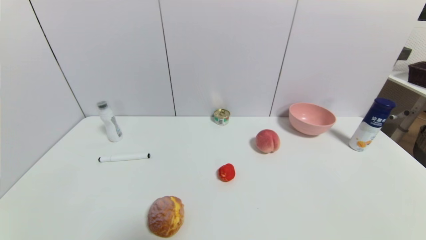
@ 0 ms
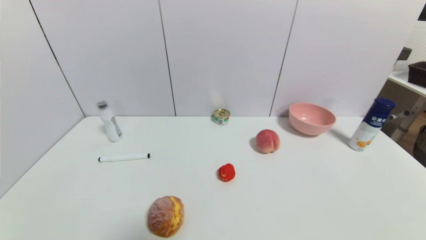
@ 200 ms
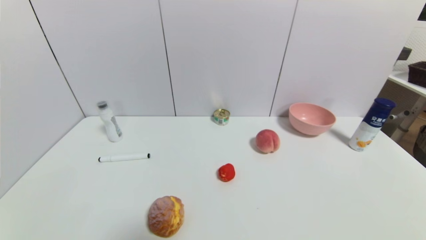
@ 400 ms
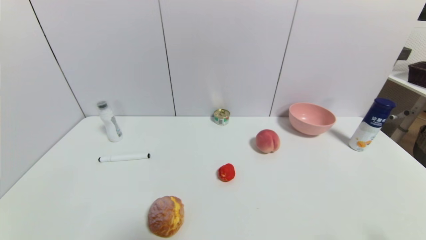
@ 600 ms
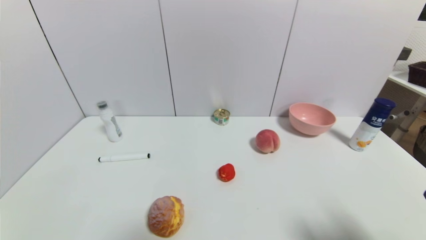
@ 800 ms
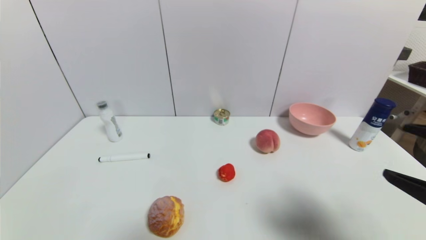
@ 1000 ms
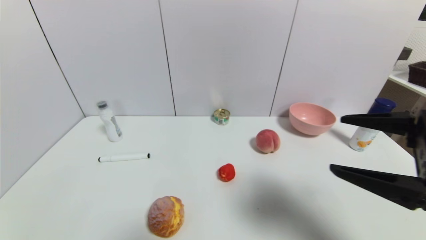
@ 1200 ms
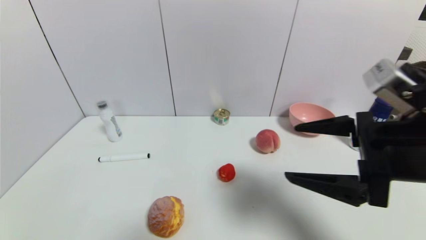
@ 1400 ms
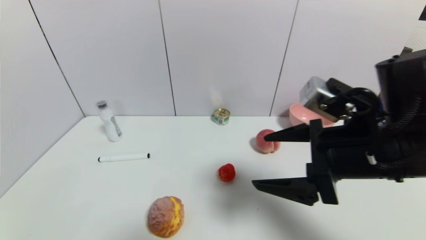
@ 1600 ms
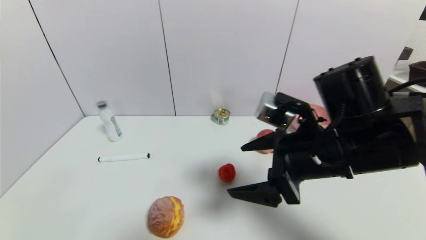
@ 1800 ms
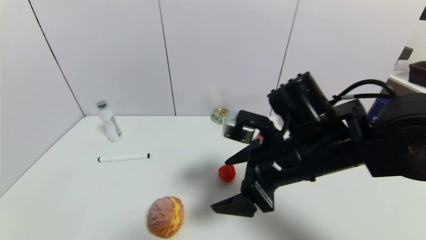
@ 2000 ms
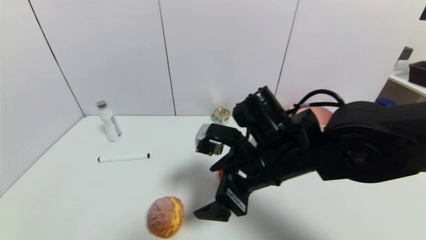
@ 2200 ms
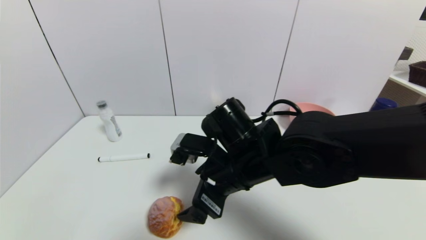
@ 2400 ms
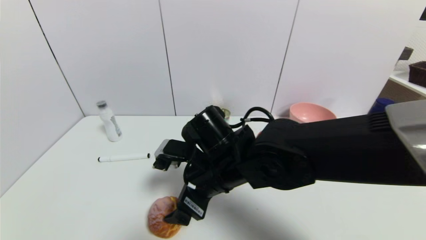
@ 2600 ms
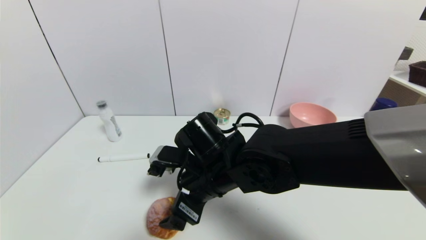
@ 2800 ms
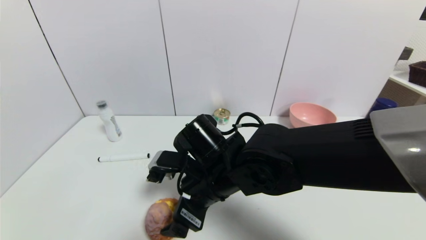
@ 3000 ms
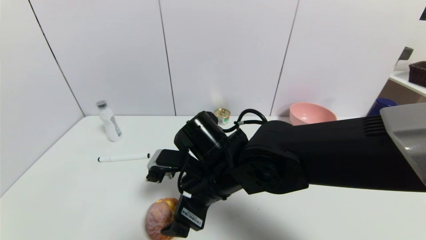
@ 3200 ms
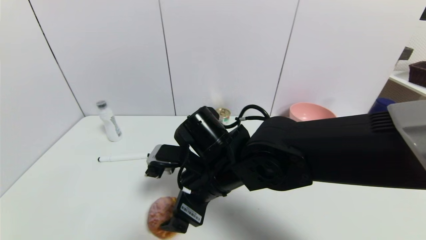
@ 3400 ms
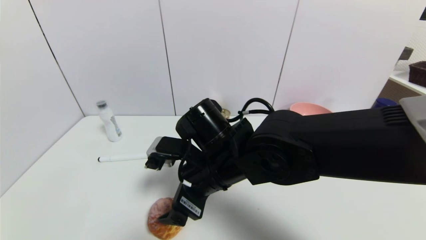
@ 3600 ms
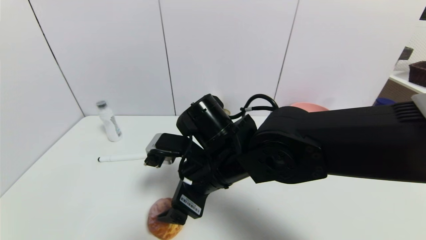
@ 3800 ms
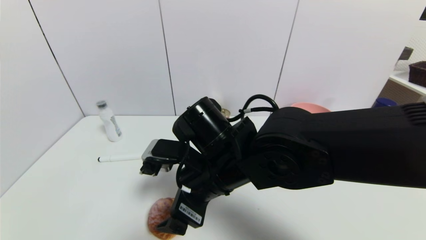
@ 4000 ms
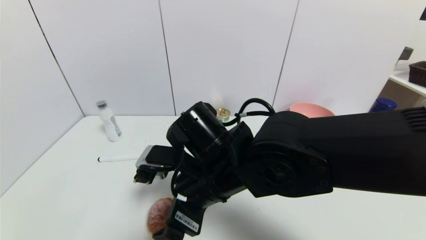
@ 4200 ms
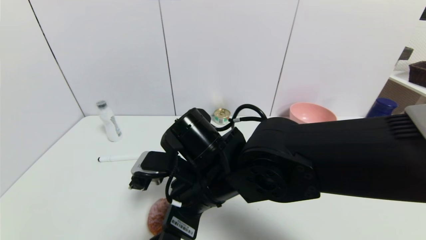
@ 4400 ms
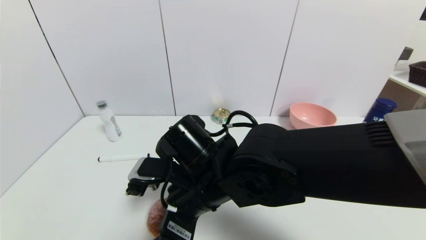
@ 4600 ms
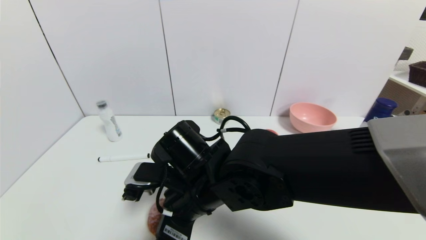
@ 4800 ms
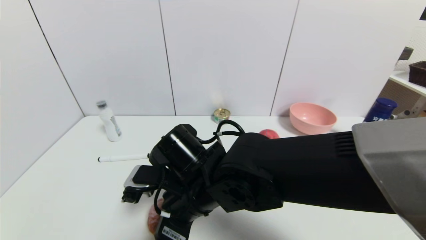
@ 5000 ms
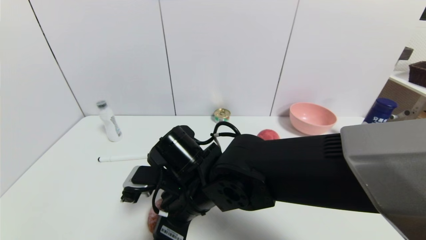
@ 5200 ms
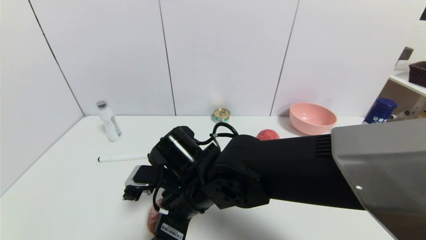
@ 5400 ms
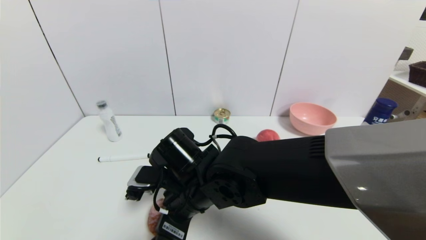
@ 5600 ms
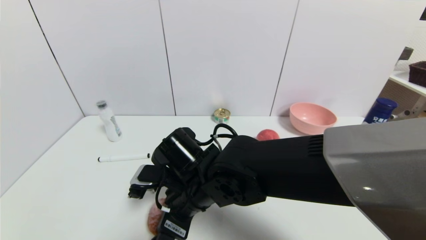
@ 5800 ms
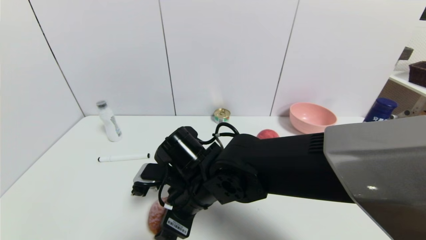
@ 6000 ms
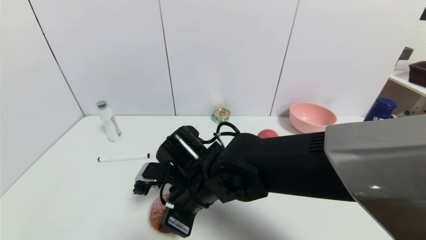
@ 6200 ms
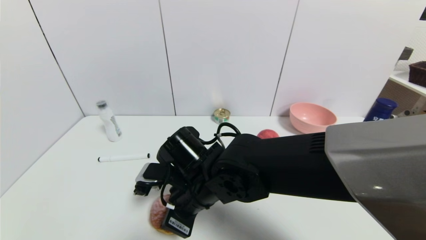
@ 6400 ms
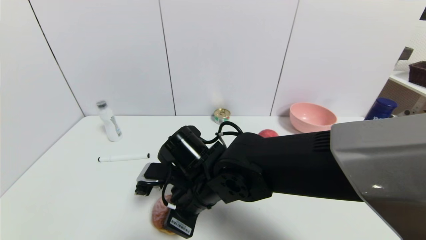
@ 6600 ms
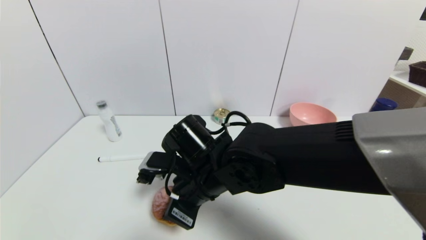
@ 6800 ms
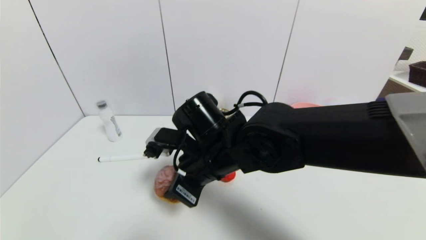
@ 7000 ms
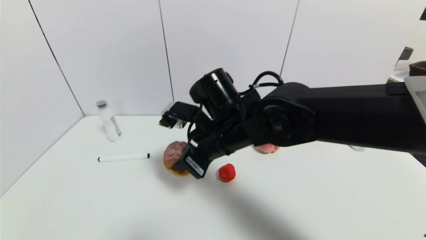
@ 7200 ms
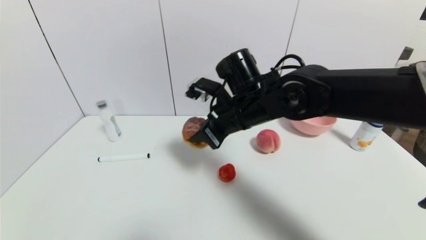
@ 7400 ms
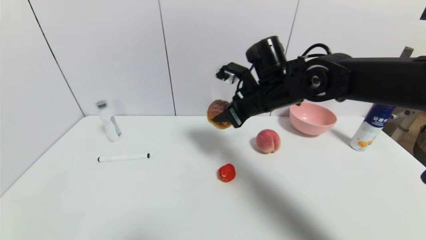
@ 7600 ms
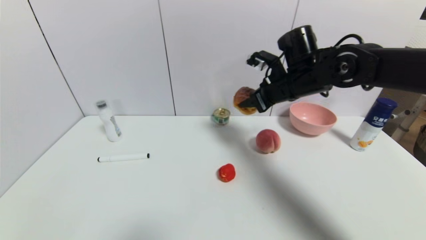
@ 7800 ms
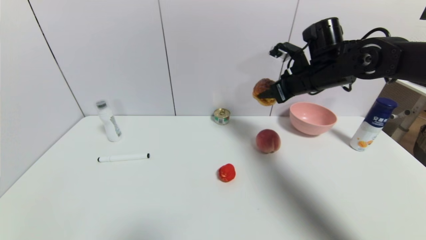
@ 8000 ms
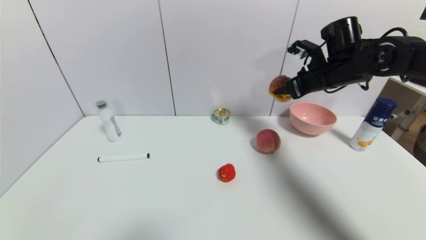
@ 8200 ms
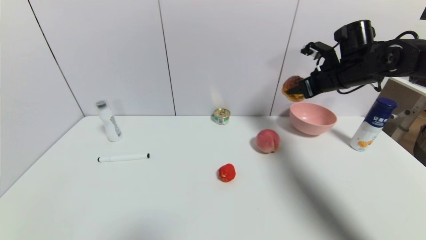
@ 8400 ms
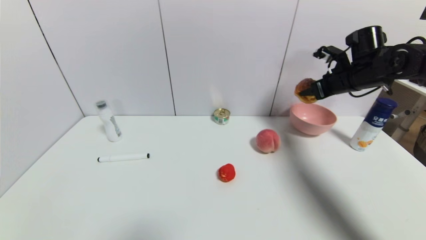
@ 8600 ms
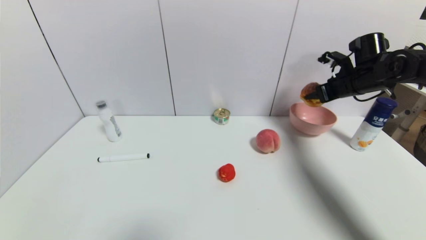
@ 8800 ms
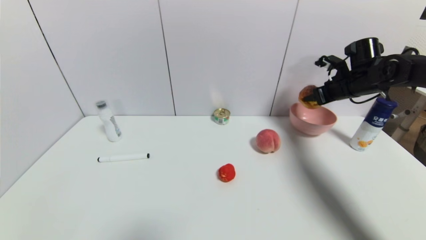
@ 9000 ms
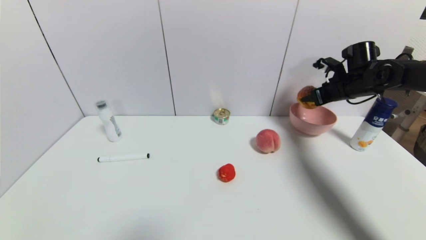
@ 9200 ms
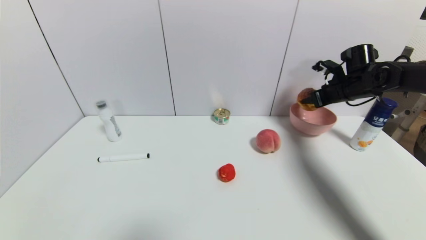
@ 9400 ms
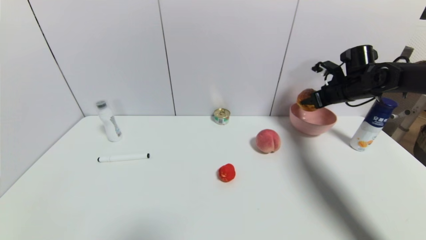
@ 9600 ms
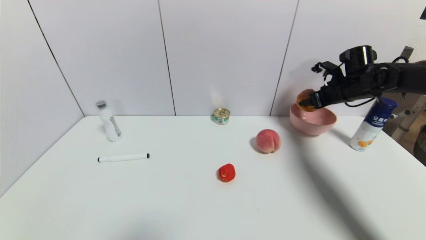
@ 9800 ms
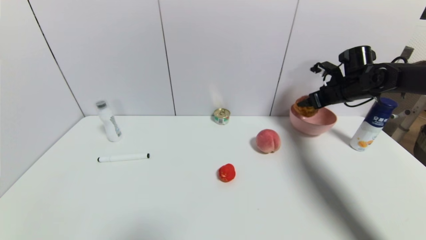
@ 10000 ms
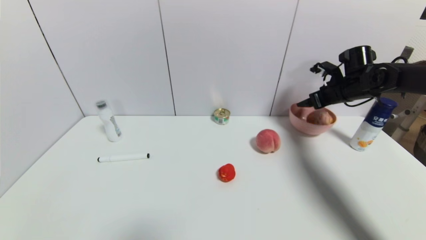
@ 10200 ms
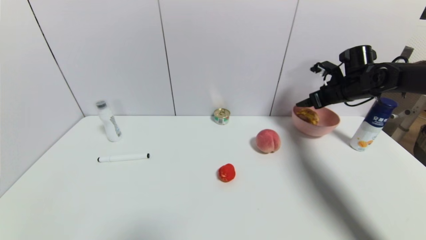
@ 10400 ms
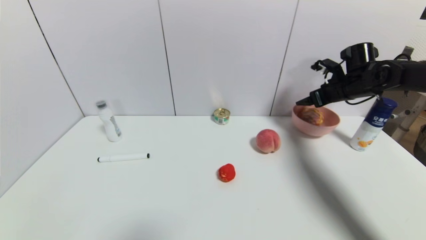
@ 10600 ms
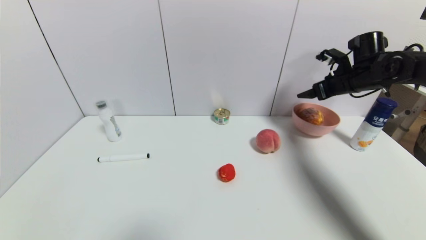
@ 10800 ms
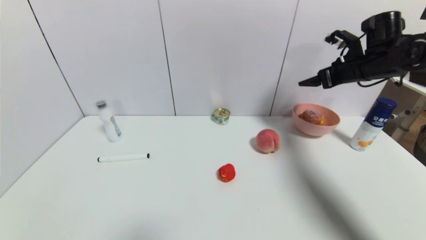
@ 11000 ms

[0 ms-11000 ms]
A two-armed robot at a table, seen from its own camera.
Task of the whole recording: use a gripper to pick the target object and place on the pink bowl.
Step, 0 ms to 6400 ms: Grasp the round bread with the right gripper.
Step, 6600 ms to 10400 ms: Place the round bread on the pink bowl with the right gripper.
0 ms to 1600 ms: The right gripper travels forward, upward and to the left by roughly 30 cm.
1600 ms to 3200 ms: The right gripper moves to the left and downward, approximately 20 cm.
3200 ms to 4800 ms: The grippers make only small movements.
4800 ms to 6200 ms: The right gripper closes up.
6200 ms to 7800 ms: The right gripper is displaced to the right, forward and upward by roughly 25 cm.
7800 ms to 9400 ms: The right gripper shifts about 20 cm to the right.
9400 ms to 11000 ms: The right gripper goes some 5 cm upward, and opens.

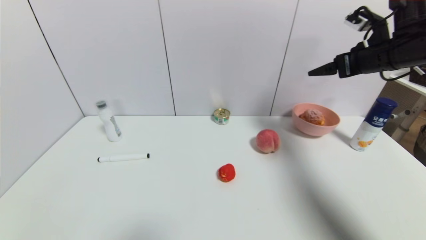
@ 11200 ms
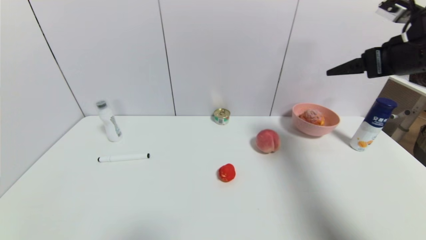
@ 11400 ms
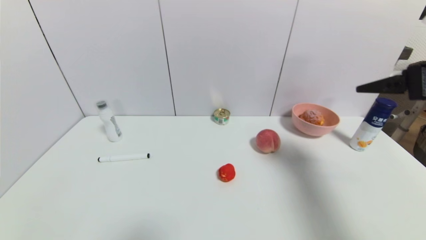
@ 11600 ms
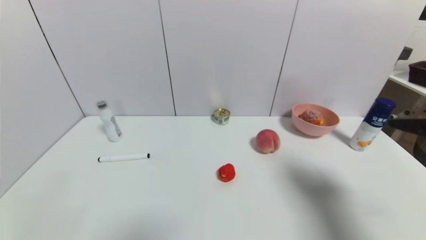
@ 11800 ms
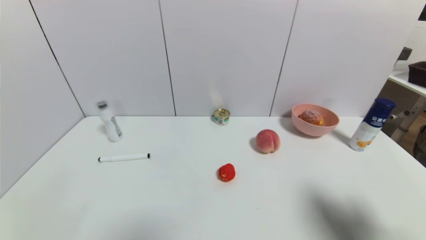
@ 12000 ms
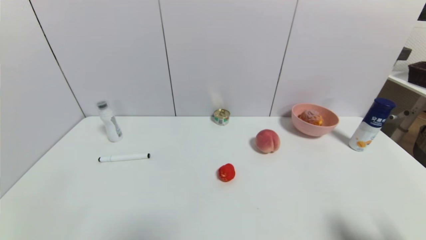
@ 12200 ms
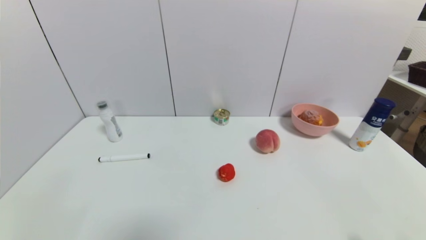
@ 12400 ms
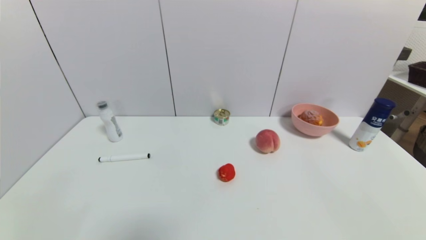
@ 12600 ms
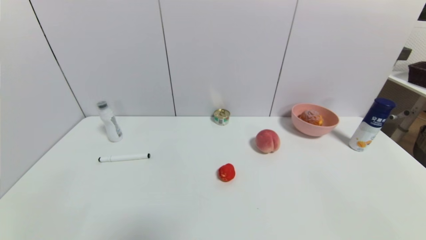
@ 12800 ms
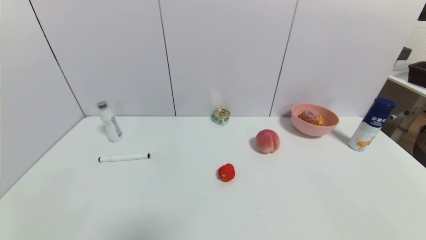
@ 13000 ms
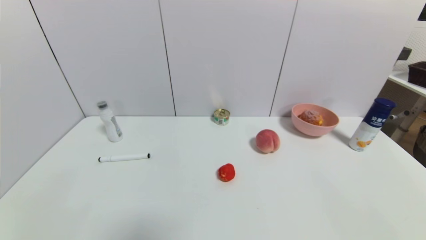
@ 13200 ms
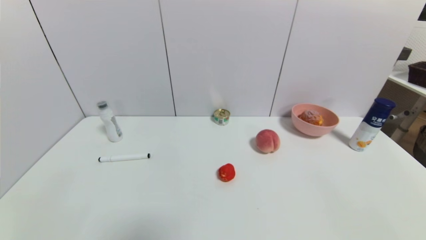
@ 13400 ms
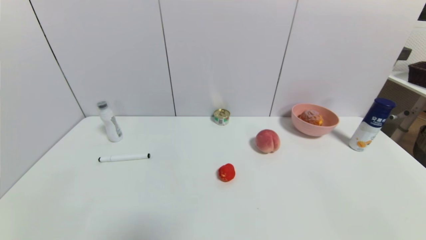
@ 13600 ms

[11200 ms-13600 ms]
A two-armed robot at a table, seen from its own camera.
Task of the whole recording: use a gripper to pick the target object and place on the pink bowl.
11200 ms to 12400 ms: The right gripper goes some 40 cm backward and downward.

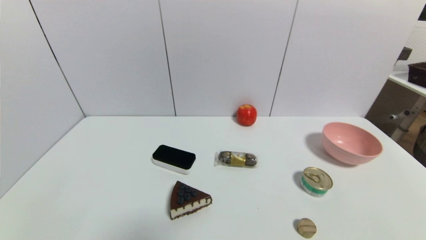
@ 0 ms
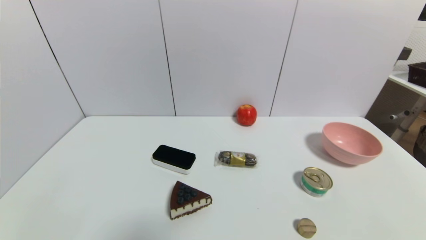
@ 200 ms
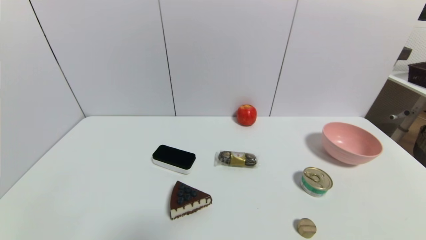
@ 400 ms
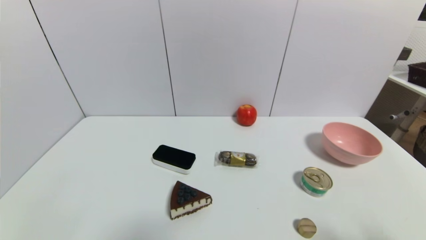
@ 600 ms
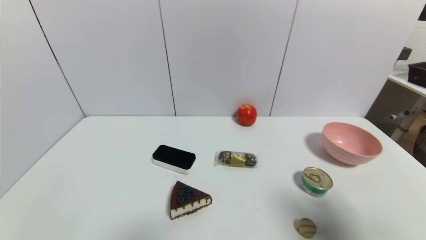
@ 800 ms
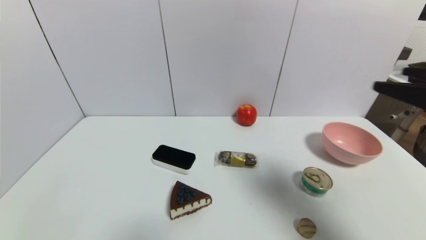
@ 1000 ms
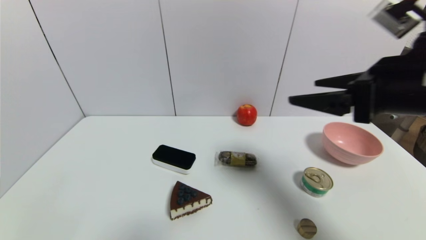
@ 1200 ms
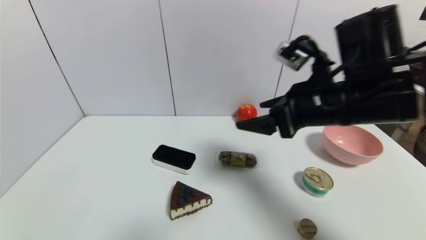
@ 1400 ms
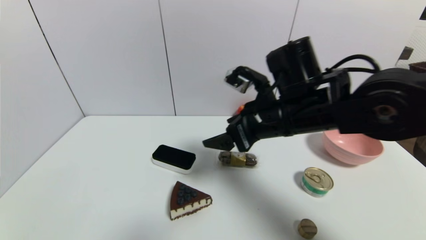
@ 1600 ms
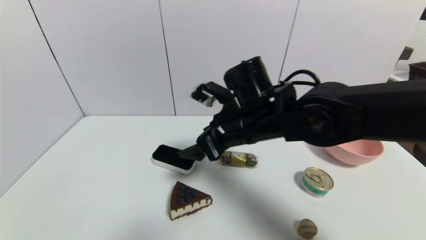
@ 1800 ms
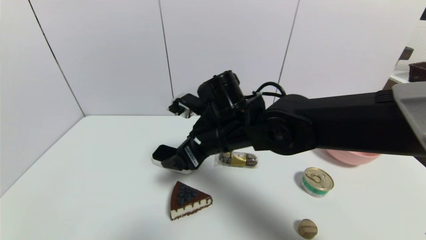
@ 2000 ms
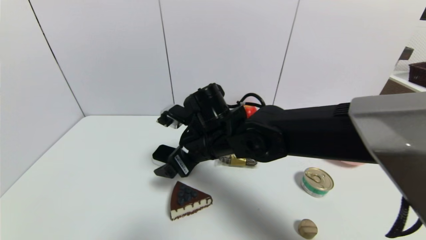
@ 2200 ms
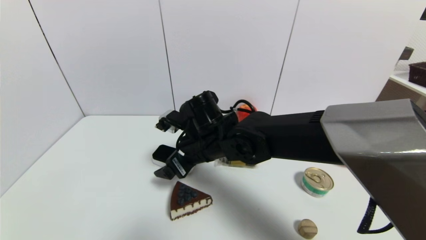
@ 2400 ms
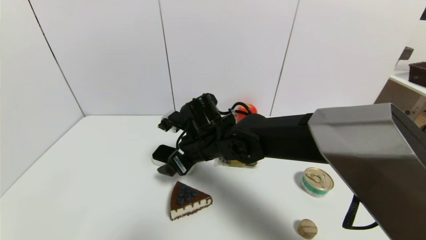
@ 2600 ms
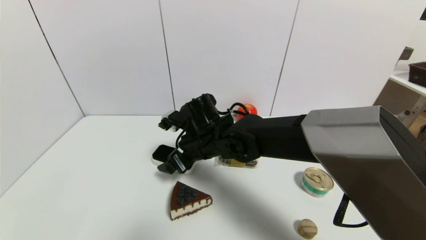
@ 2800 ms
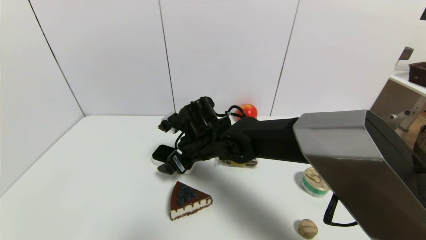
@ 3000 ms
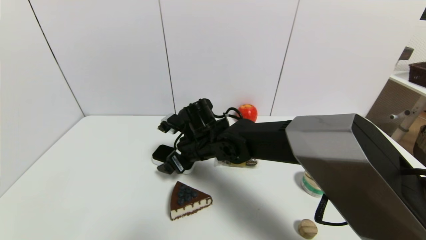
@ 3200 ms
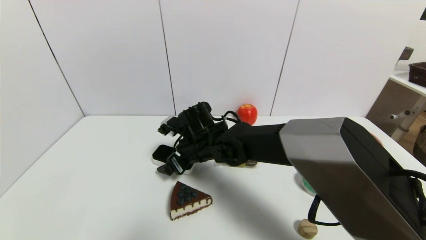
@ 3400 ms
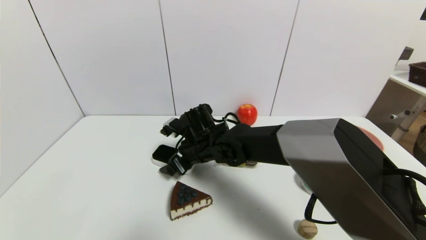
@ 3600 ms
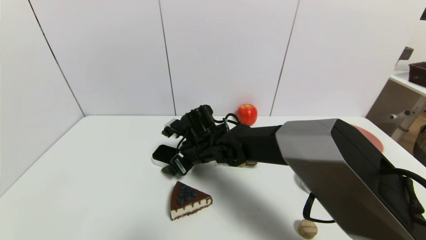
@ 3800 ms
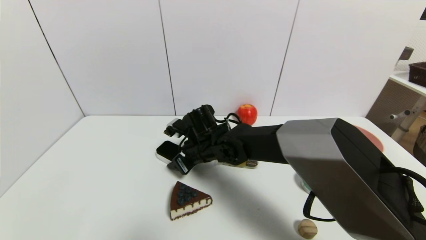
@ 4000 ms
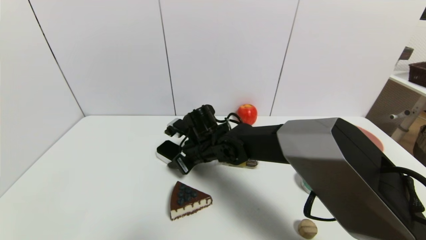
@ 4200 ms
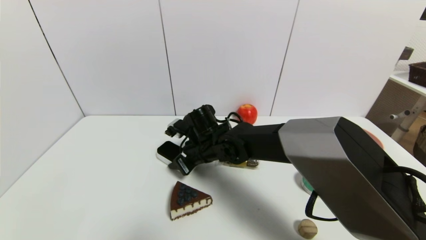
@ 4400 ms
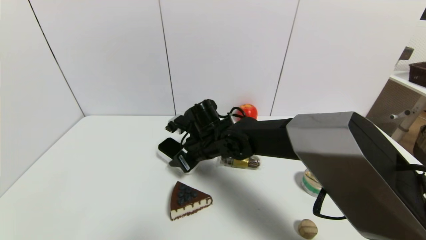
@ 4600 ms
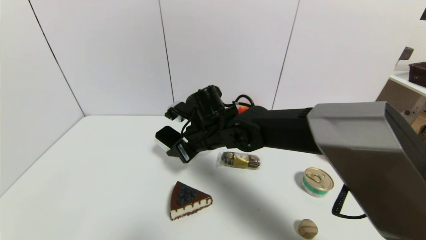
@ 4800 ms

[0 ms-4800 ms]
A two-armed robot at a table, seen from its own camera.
Task of the whole recording: use a gripper to pick the target object and place on the pink bowl.
Step, 0 ms to 4000 ms: Grasp the blackboard erasure with the right gripper.
0 ms to 1600 ms: The right gripper travels forward, to the left and upward by about 40 cm.
1600 ms to 3200 ms: The right gripper shifts roughly 20 cm to the left, downward and forward.
3200 ms to 4800 ms: The right gripper closes its fingers.
